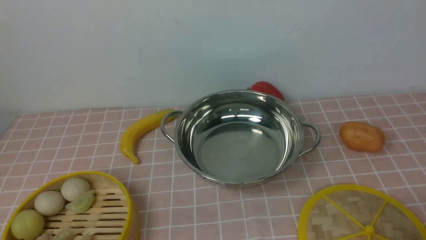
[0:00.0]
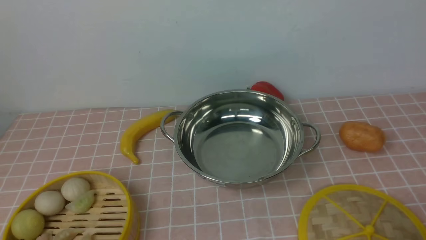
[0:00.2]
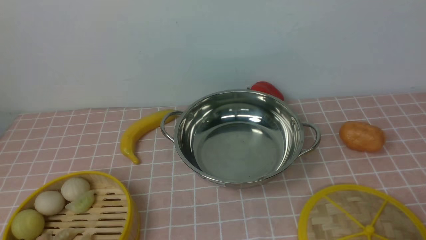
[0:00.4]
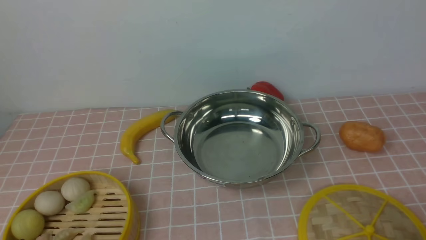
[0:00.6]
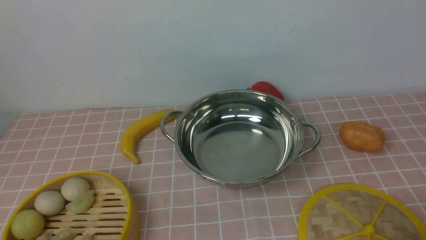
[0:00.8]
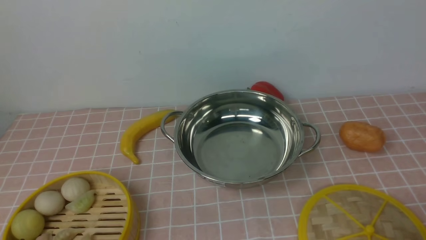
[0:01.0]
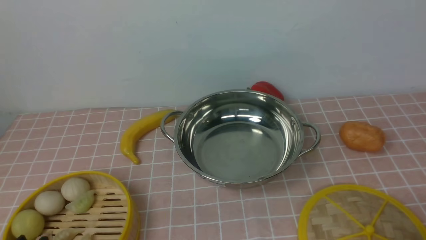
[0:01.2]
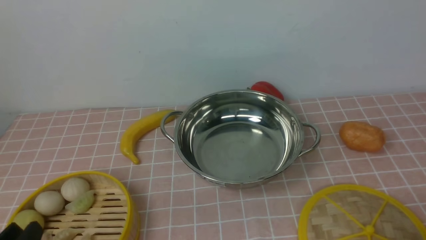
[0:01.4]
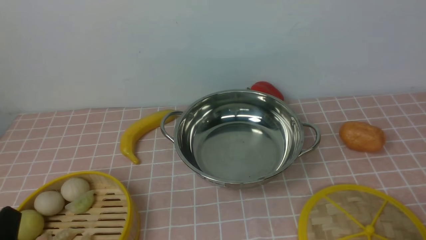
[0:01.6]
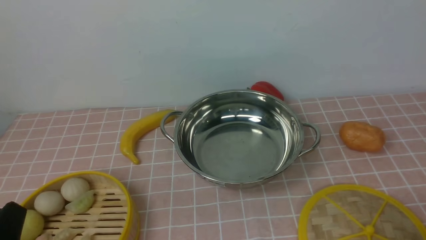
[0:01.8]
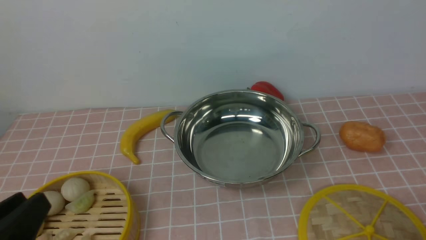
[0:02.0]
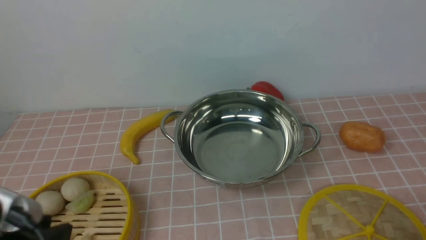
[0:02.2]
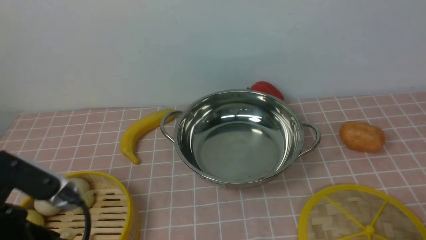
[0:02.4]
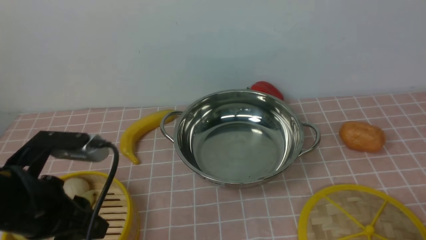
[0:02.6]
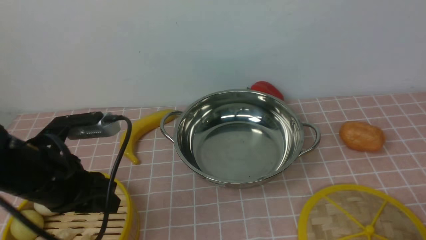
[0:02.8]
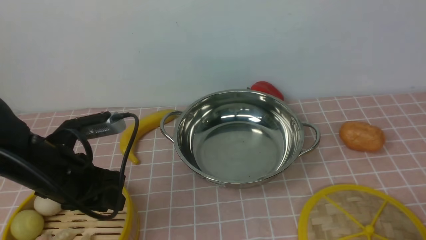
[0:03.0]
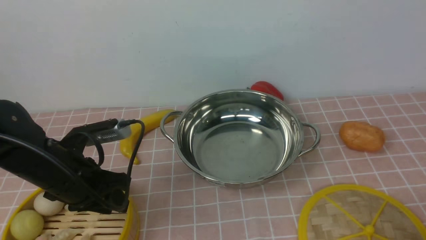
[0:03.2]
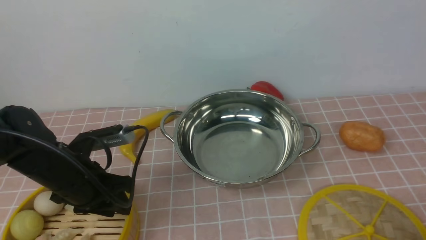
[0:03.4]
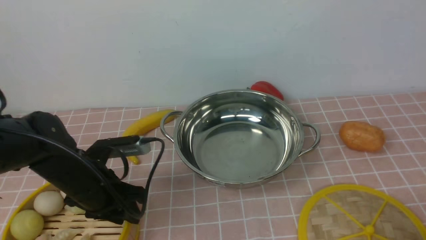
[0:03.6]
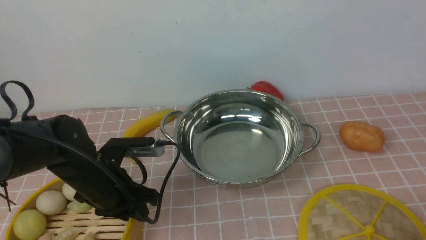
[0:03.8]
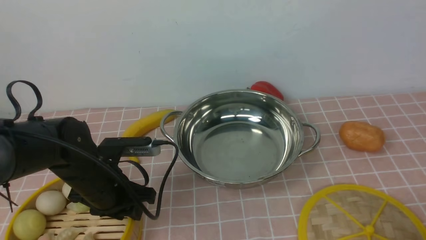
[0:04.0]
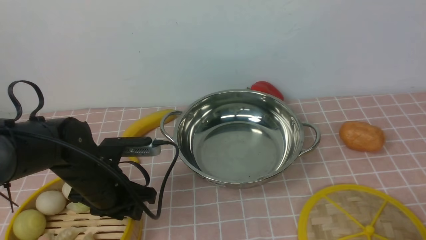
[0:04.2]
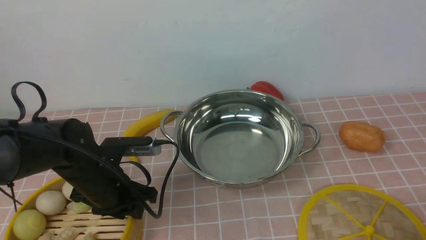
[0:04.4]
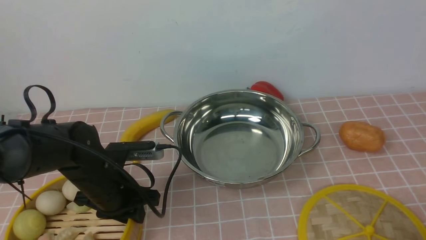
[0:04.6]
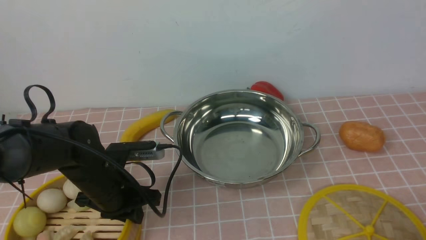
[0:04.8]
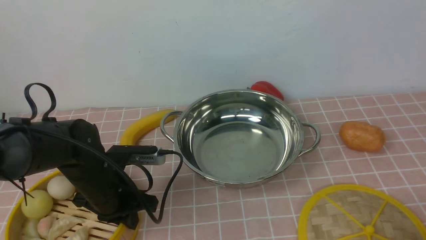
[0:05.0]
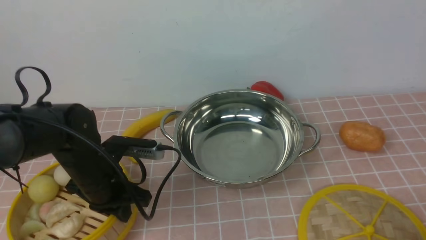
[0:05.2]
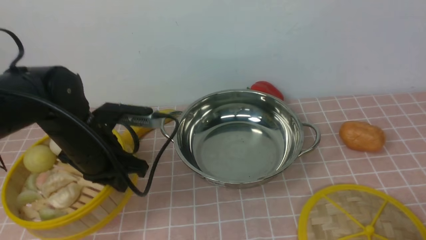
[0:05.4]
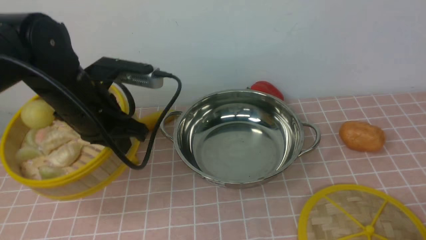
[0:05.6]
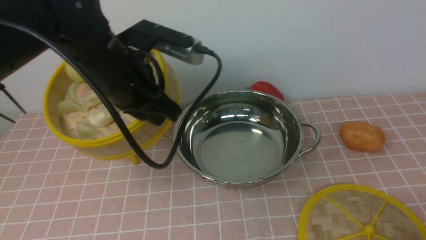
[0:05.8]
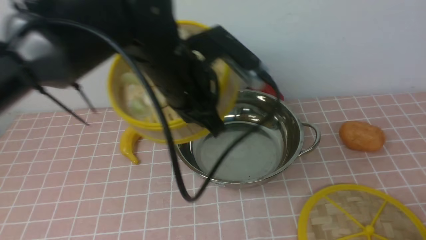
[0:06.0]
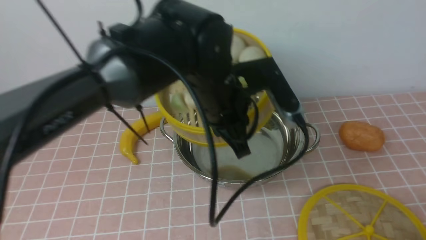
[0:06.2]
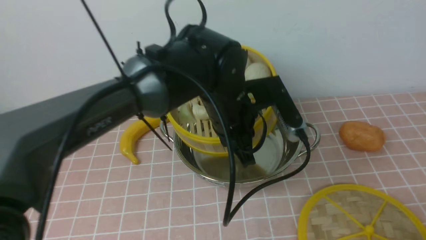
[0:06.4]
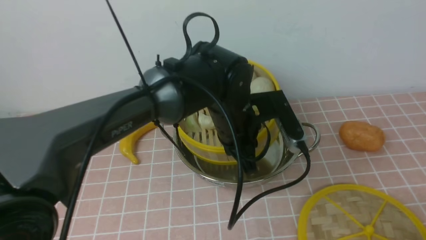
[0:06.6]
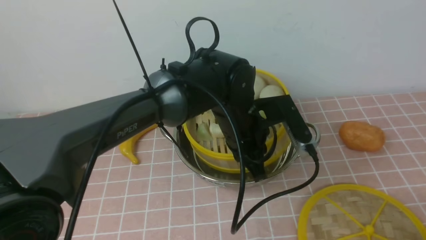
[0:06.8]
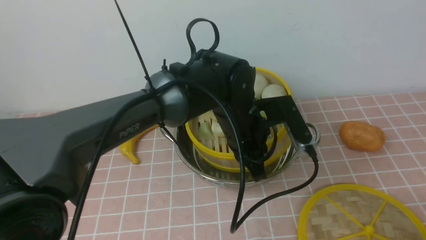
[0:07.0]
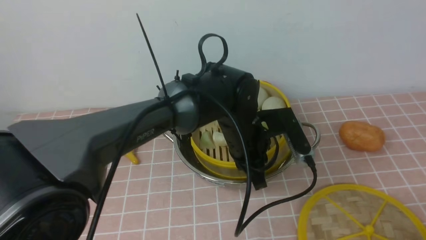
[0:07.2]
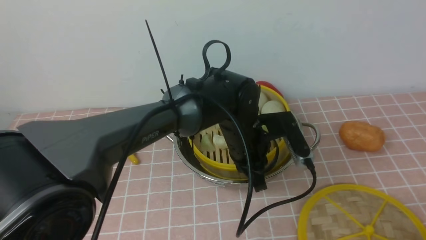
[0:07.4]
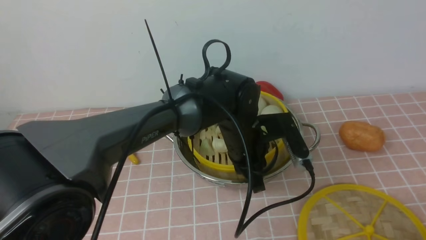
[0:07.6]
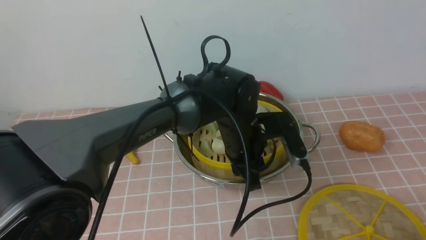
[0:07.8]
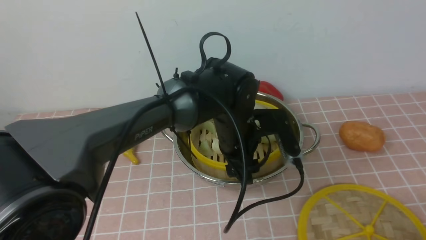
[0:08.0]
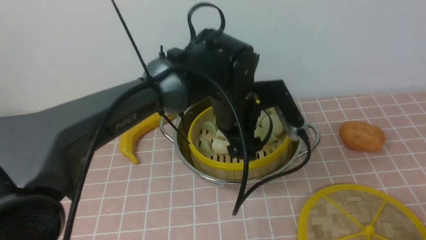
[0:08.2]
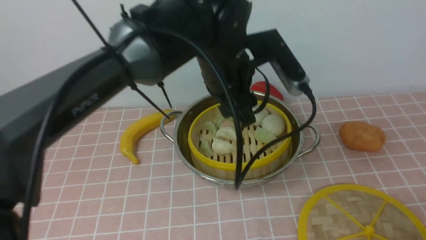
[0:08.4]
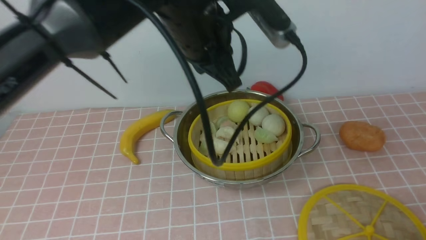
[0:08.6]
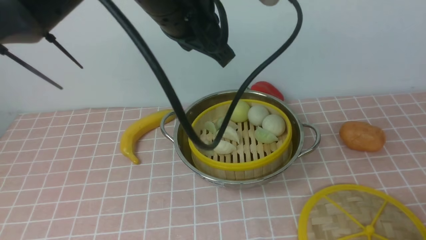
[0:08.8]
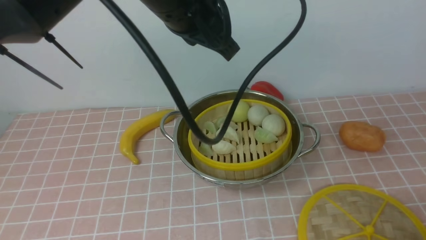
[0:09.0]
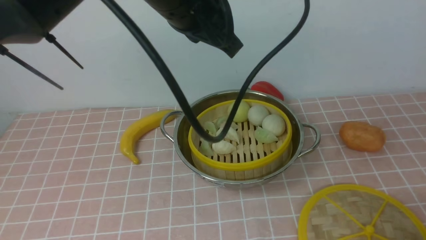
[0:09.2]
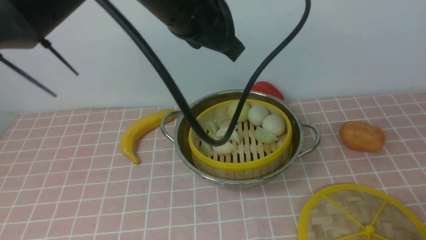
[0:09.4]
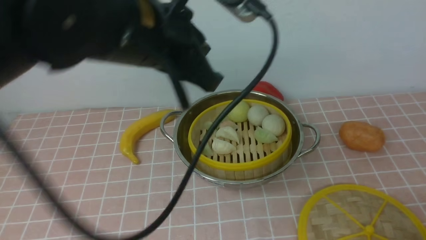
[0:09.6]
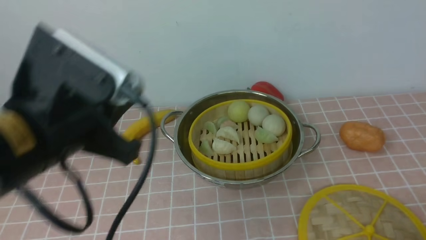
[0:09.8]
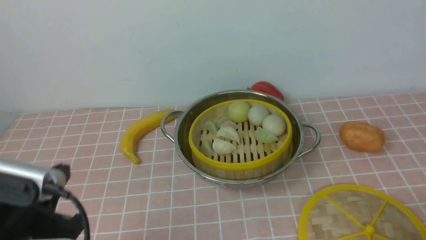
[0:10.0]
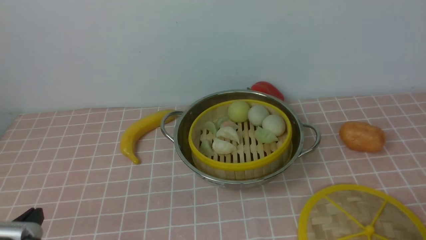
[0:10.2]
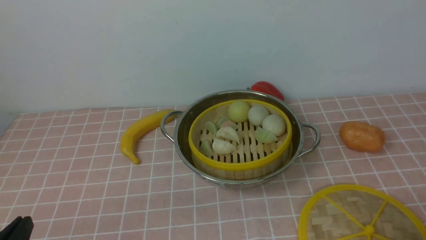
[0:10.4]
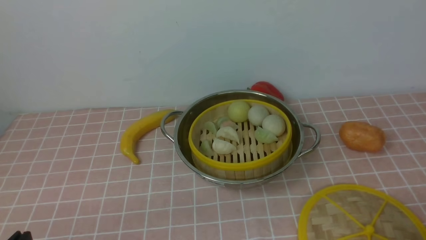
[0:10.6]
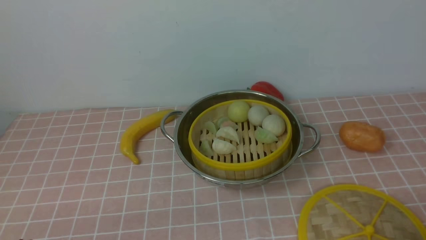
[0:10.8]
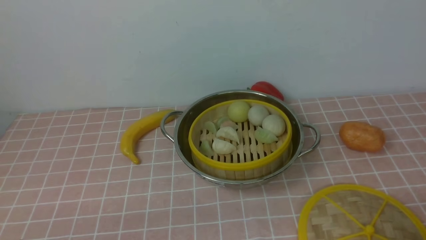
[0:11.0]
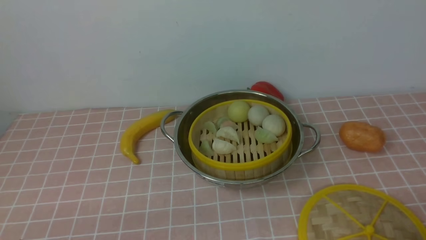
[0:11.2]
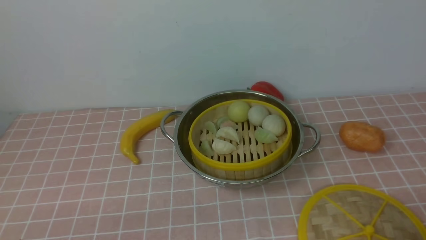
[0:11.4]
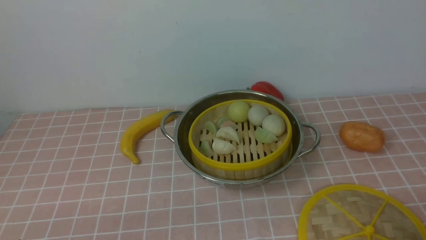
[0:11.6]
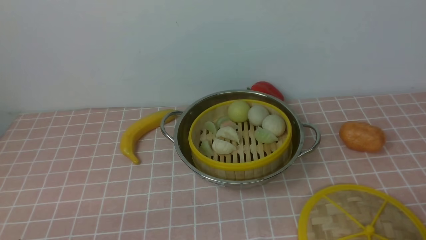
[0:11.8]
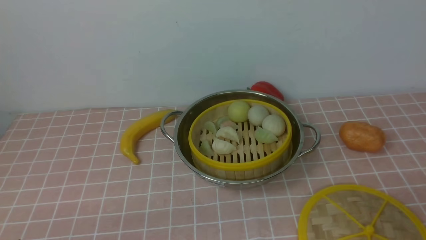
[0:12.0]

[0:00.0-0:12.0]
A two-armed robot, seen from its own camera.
Task of the whole recording: place the steamer in the pot on the pink tablecloth, and put the lid on the steamer.
Step, 0:00.0 to 0:05.2: use the left arm to lift the steamer closest to it.
Step, 0:05.4 to 0:08.0: use the left arm to put the steamer into the iron steamer pot in the middle.
0:01.6 to 0:03.0: The left gripper shifts about 20 cm forward.
0:03.0 to 0:04.4: The left gripper goes about 5 cm downward.
0:04.4 to 0:06.0: The left gripper is displaced upward and to the right by some 20 cm, and closes up.
0:06.0 to 0:07.6: The left gripper shifts approximately 15 cm downward and to the right.
0:07.6 to 0:09.0: The left gripper travels upward by roughly 25 cm, and closes its fingers.
0:09.0 to 0:10.4: The left gripper heads backward, downward and to the left, covering approximately 40 cm.

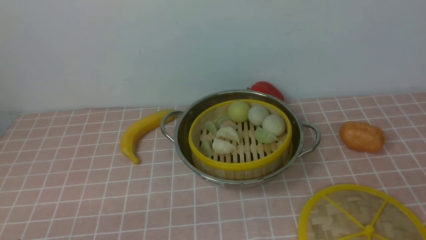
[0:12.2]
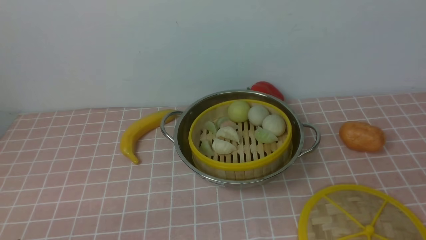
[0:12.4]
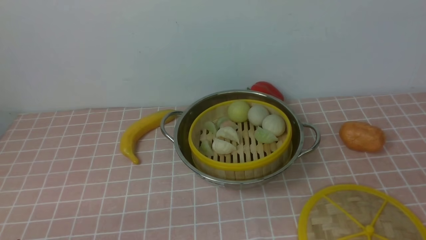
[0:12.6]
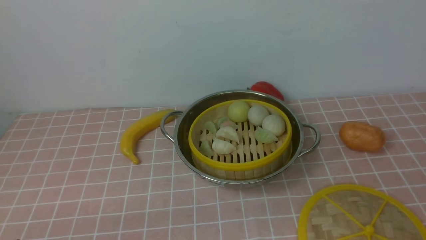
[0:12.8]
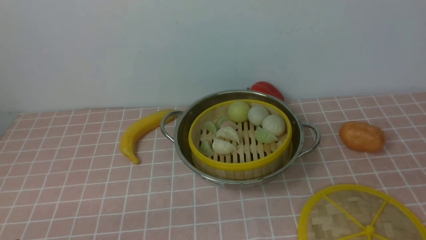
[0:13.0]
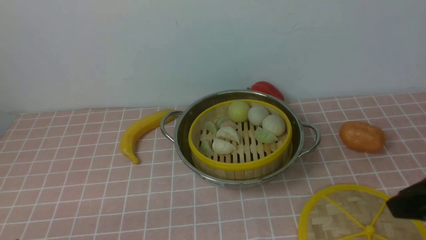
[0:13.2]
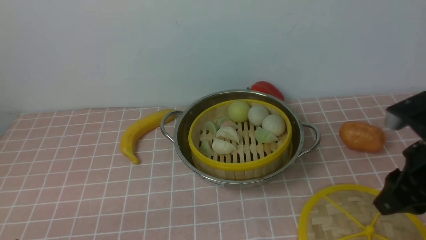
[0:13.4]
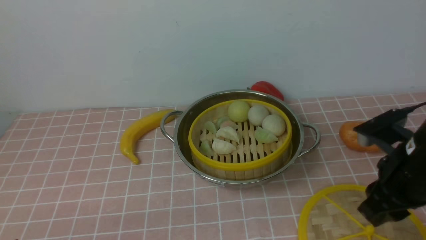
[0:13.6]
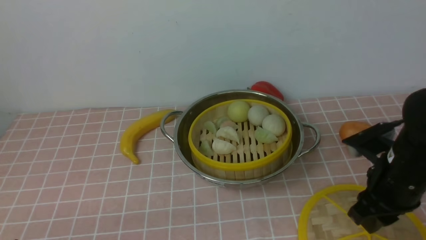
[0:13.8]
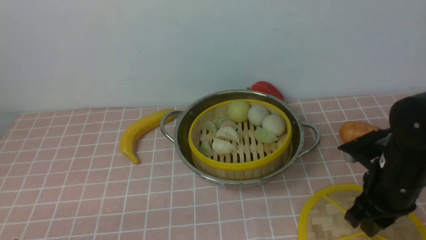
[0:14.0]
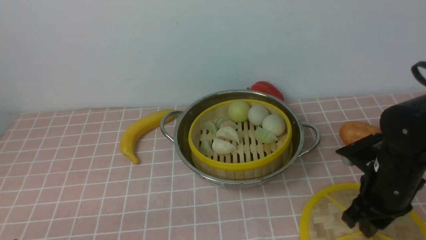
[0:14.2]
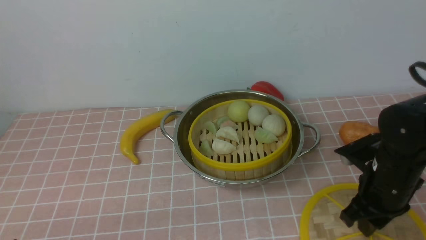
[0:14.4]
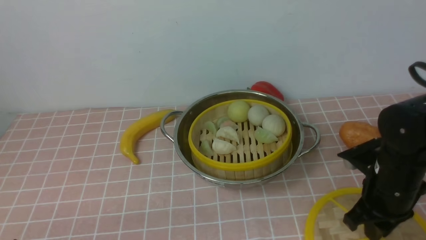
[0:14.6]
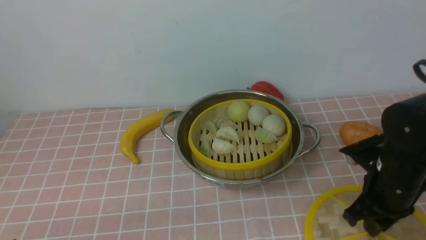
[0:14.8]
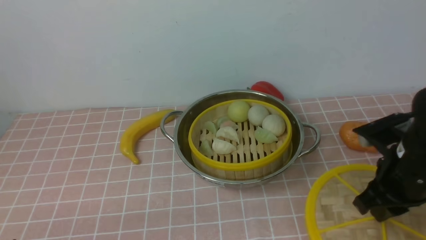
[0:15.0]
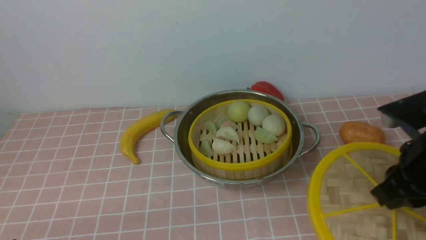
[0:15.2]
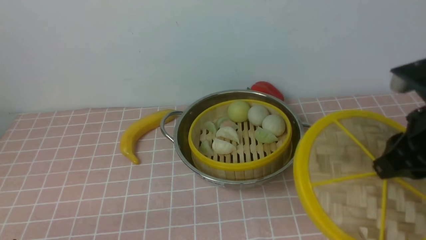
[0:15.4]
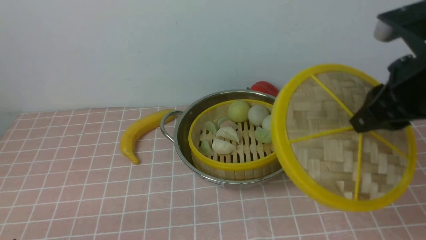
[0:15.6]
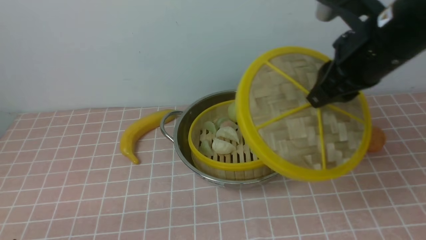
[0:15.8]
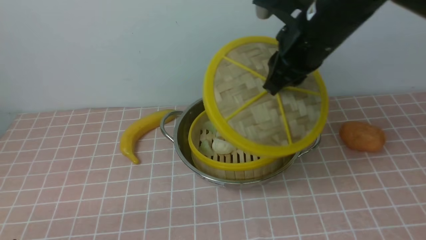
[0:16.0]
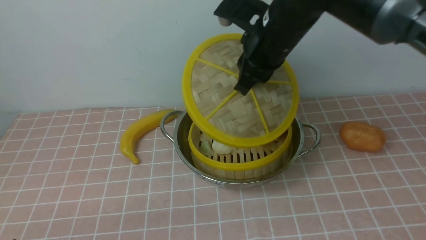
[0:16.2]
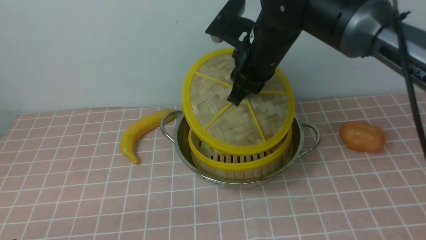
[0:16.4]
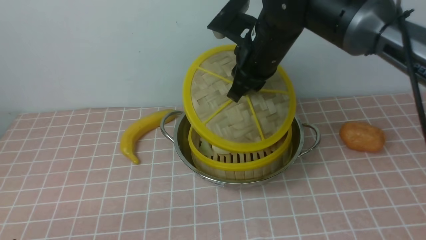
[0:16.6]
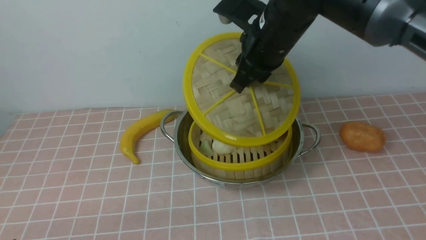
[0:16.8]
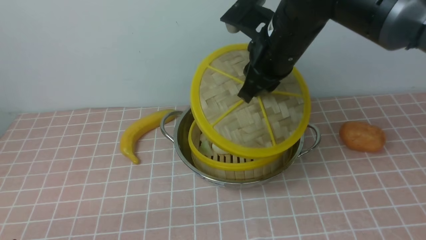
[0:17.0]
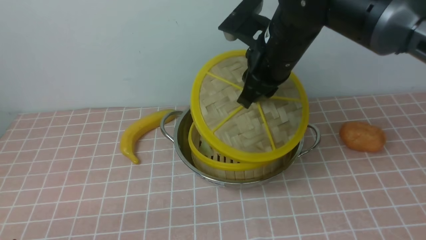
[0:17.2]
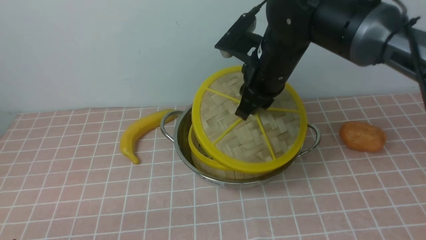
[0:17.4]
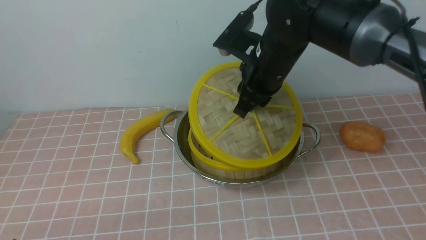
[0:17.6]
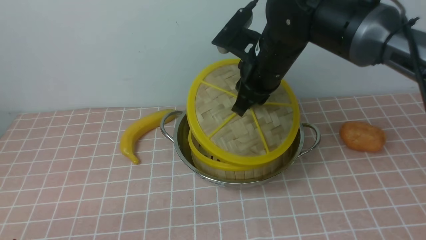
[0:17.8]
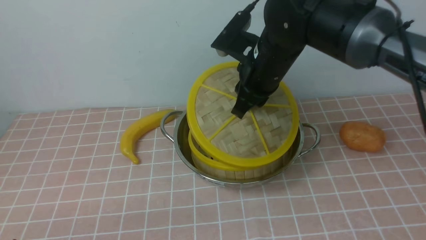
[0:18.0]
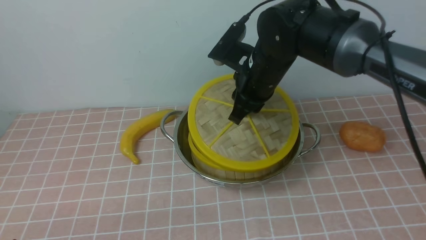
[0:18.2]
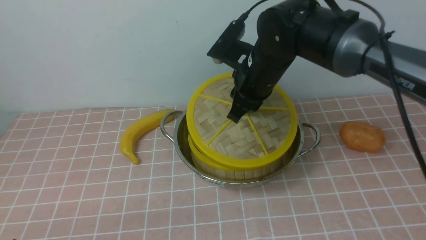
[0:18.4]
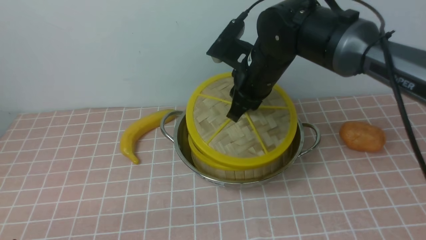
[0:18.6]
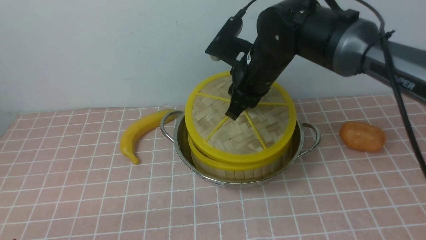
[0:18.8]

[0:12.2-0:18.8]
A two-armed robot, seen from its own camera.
Task of the whole recording: place the steamer in the pot on the pink tablecloth, and put the lid on the steamer.
Step, 0:12.2 to 0:14.8: use the right arm to lift the lid of the steamer.
0:12.2 to 0:13.8: The right gripper shifts roughly 20 cm forward.
0:13.8 to 0:15.4: The right gripper moves upward, roughly 10 cm, and closes up.
0:15.4 to 0:17.2: The right gripper is displaced to the left and forward by some 20 cm.
0:17.2 to 0:18.8: The right gripper shifts by about 5 cm.
